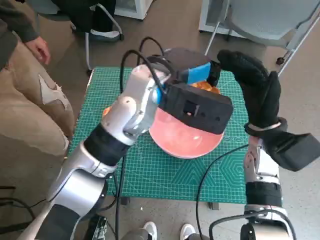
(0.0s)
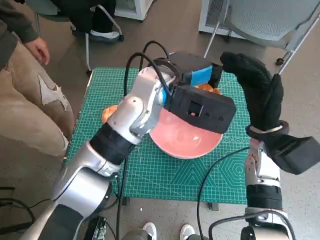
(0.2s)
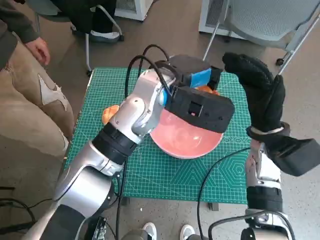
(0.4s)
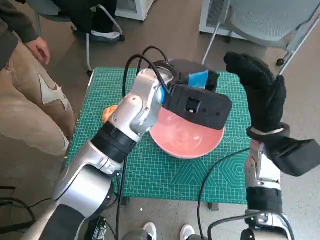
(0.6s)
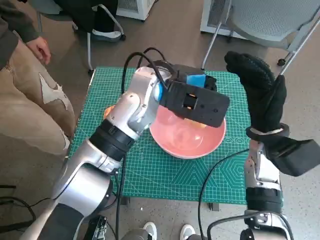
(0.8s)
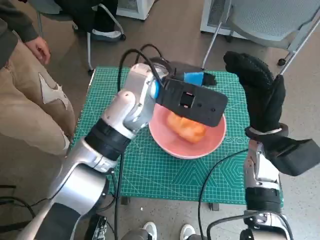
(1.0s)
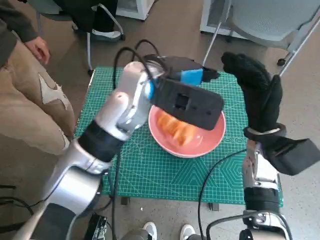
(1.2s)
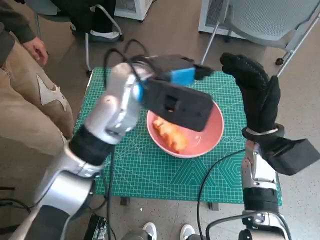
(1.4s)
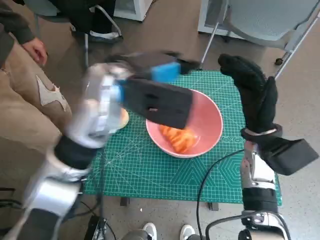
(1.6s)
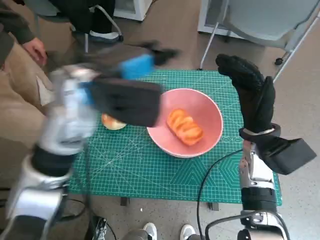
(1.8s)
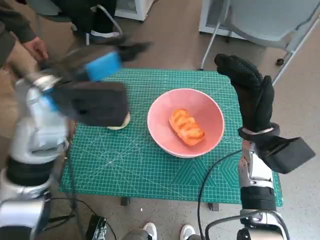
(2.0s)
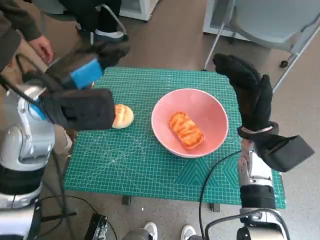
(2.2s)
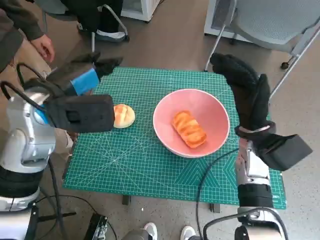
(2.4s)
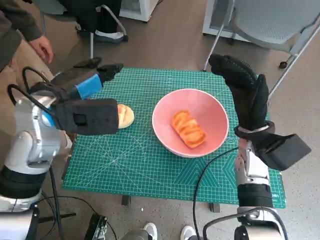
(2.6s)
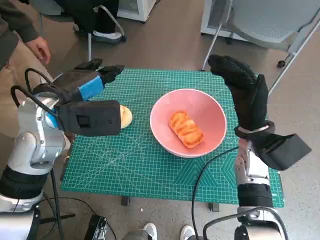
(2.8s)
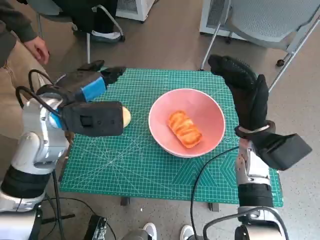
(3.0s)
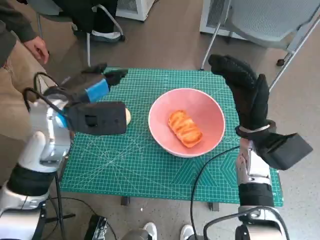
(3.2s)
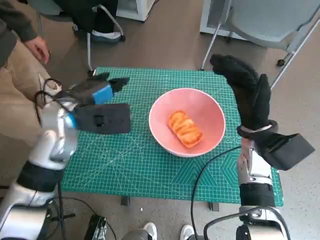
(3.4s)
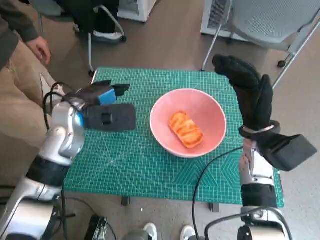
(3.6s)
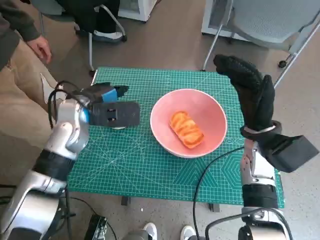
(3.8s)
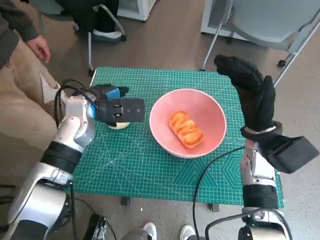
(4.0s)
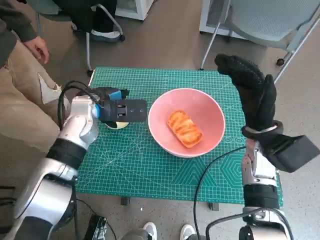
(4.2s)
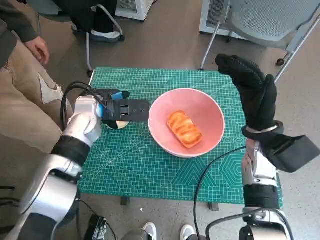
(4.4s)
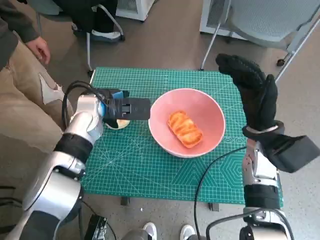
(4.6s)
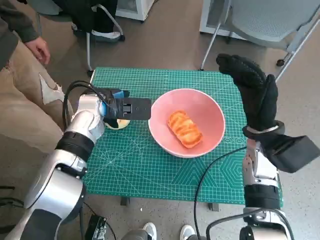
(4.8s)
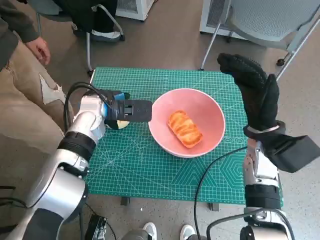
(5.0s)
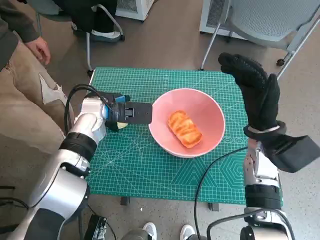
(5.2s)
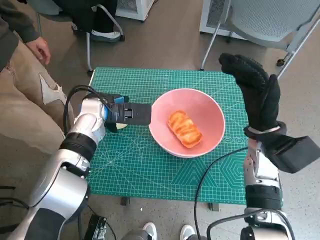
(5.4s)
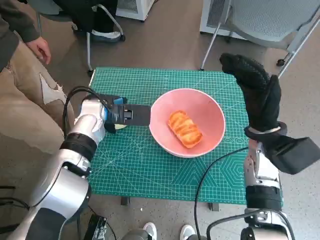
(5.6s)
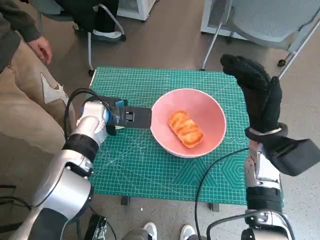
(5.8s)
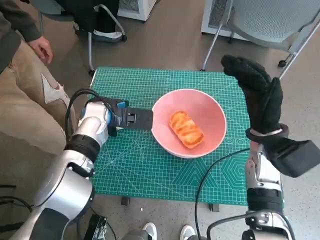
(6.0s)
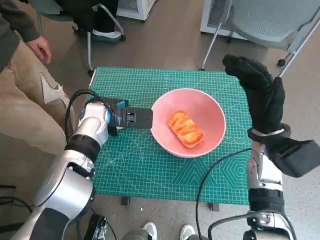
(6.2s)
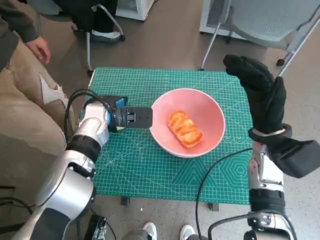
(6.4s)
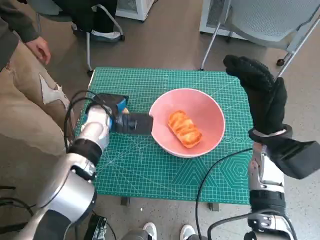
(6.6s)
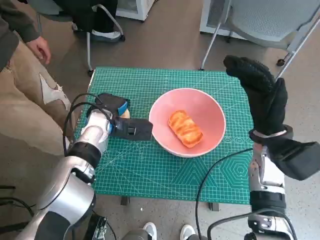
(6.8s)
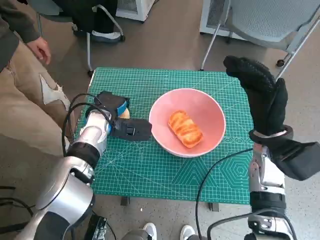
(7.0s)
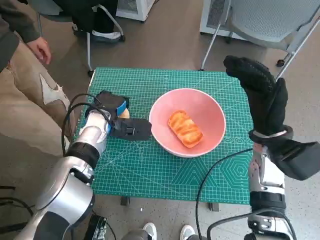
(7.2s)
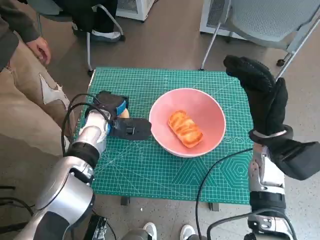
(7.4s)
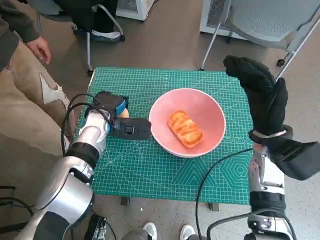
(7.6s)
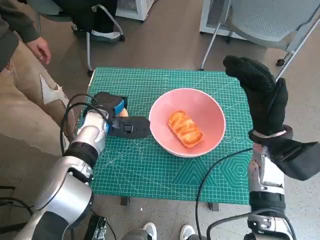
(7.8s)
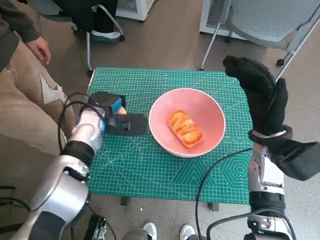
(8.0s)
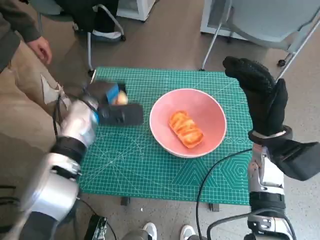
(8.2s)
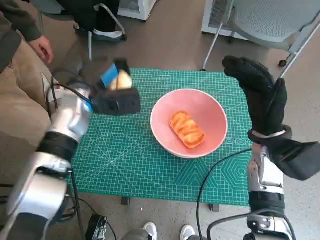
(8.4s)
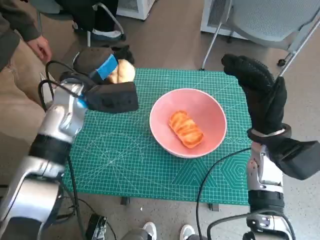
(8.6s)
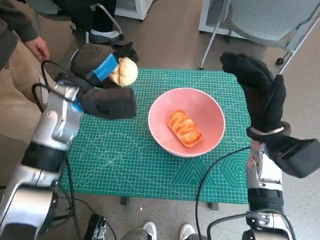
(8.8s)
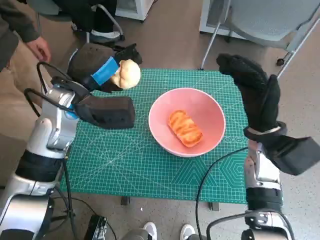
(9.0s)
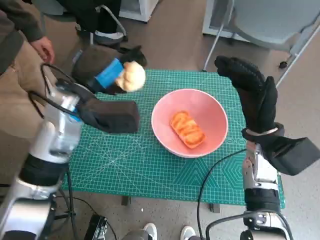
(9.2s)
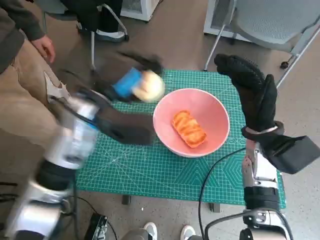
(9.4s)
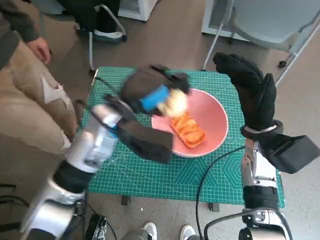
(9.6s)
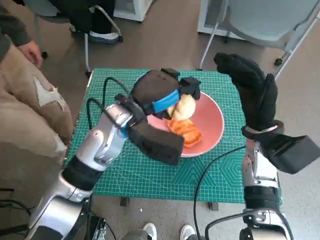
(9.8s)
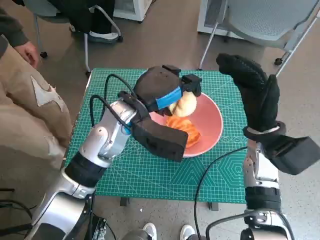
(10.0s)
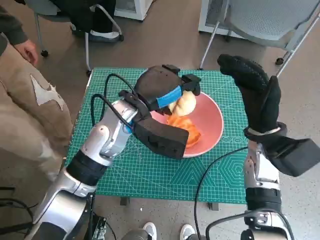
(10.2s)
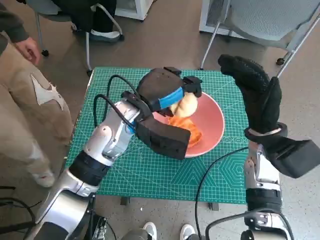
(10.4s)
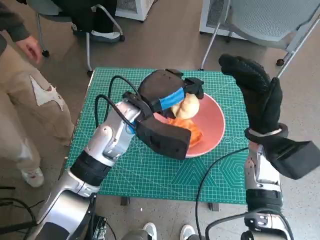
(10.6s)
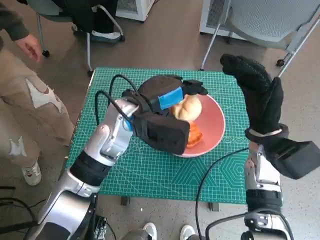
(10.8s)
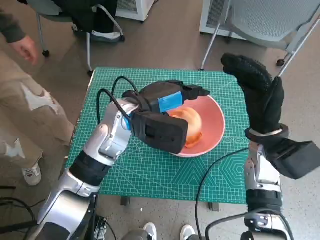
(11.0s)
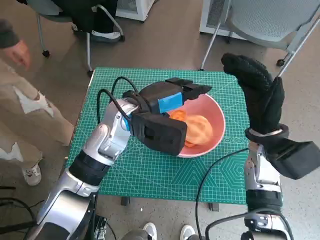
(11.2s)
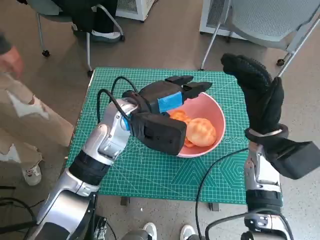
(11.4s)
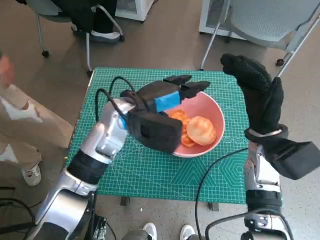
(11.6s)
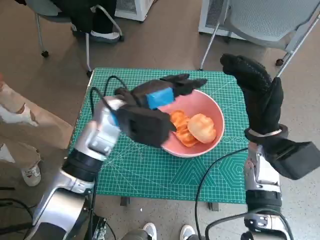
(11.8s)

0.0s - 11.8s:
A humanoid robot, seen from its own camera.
Step, 1.4s - 6.6s: Grasp the round bread with left hand.
Step, 6.8s - 11.4s: Place the round bread in pink bowl with left hand.
1.4s - 3.0s: The left hand is displaced to the left by about 15 cm.
3.0s - 4.4s: The left hand heads downward and forward, covering about 10 cm.
7.4s - 8.8s: The left hand goes about 10 cm upward.
8.8s - 10.4s: The left hand moves to the right, roughly 10 cm.

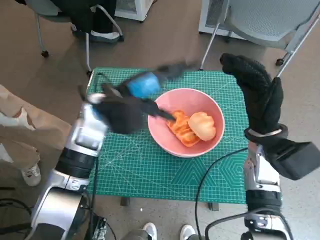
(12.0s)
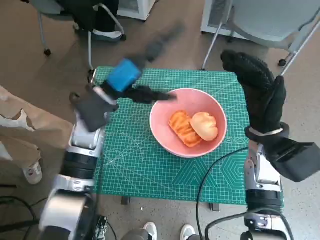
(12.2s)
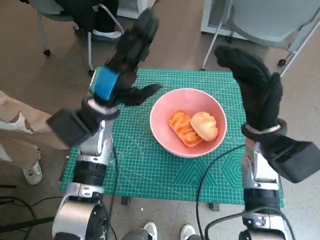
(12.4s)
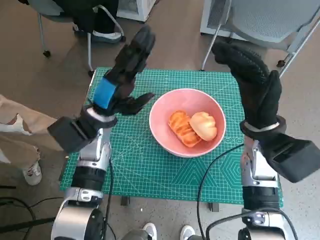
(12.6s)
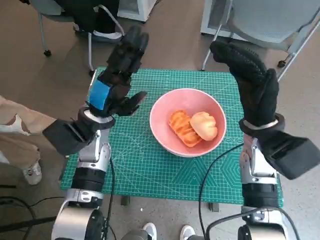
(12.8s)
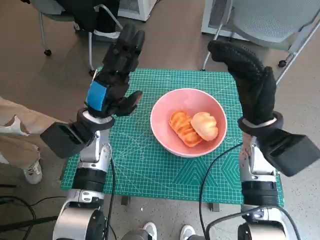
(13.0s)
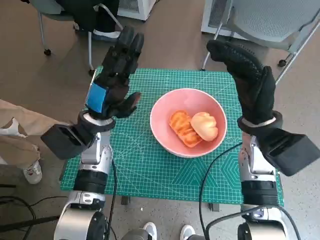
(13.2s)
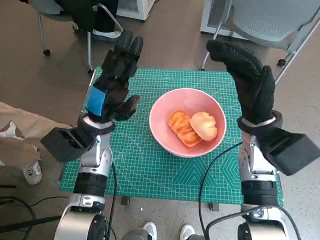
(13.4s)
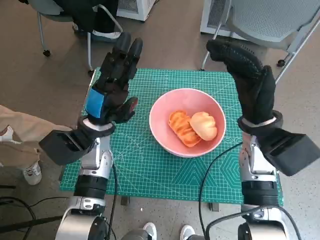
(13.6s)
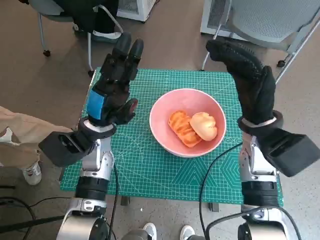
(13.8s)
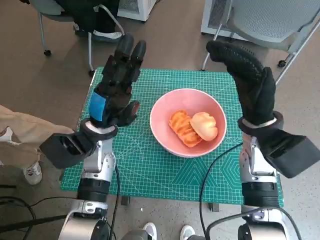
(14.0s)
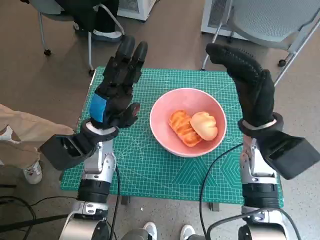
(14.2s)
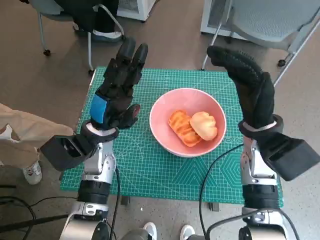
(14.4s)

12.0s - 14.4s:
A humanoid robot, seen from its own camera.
12.0s - 13.2s: The left hand shifts about 5 cm downward.
13.2s - 14.4s: There are only small adjustments of the hands.

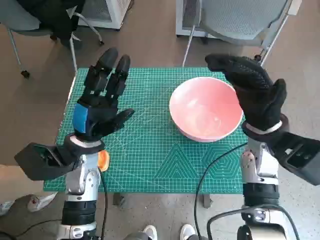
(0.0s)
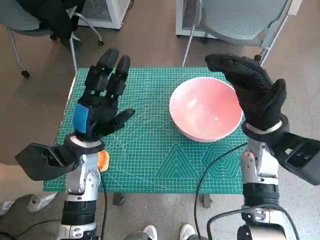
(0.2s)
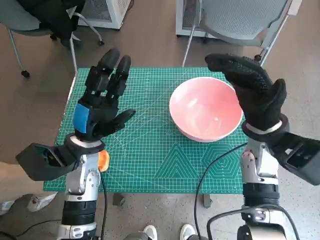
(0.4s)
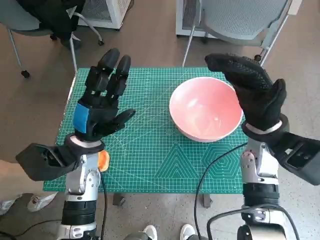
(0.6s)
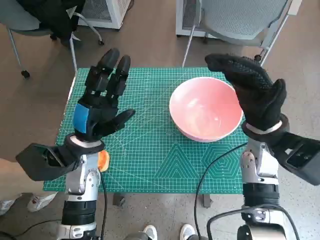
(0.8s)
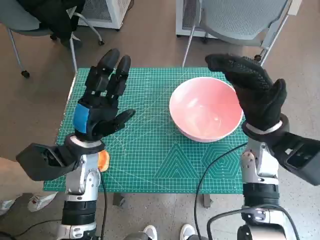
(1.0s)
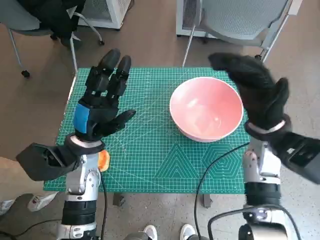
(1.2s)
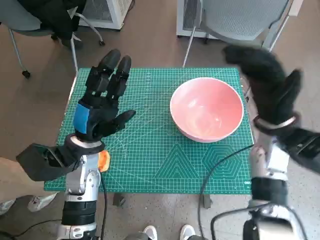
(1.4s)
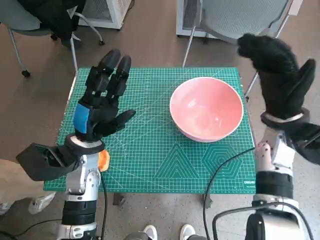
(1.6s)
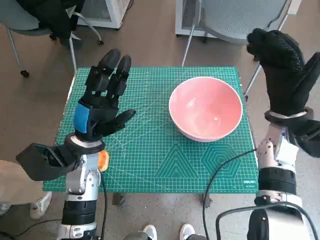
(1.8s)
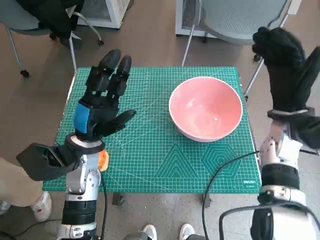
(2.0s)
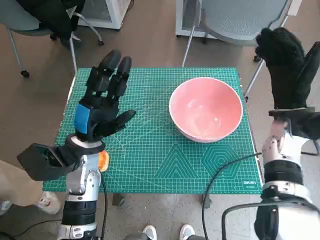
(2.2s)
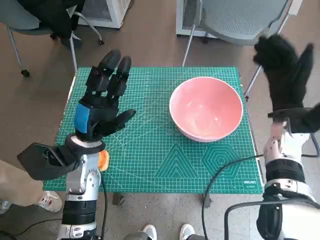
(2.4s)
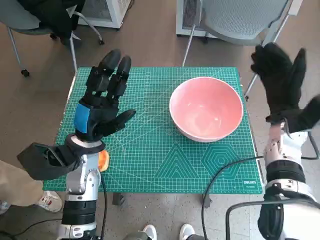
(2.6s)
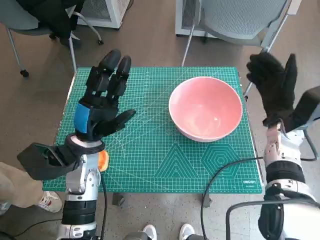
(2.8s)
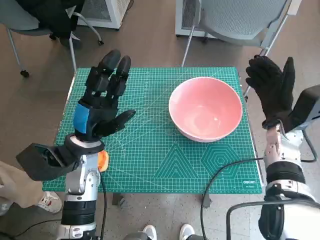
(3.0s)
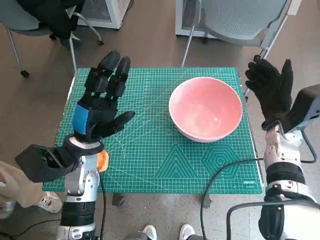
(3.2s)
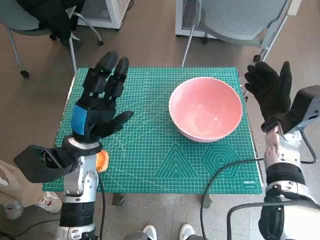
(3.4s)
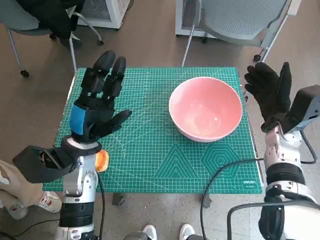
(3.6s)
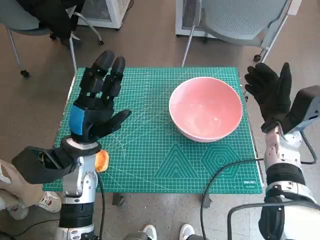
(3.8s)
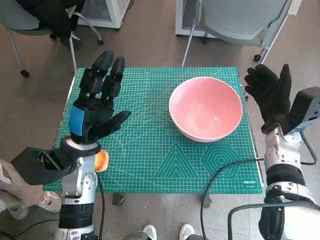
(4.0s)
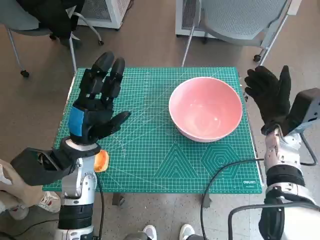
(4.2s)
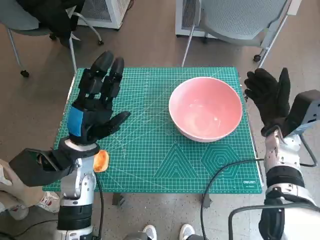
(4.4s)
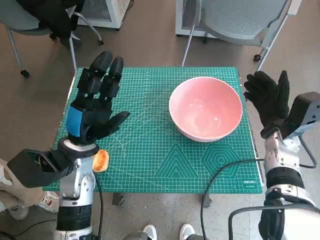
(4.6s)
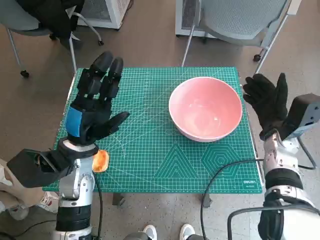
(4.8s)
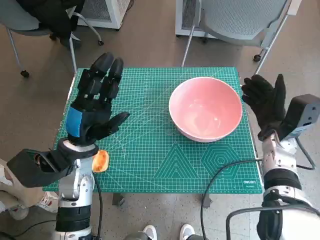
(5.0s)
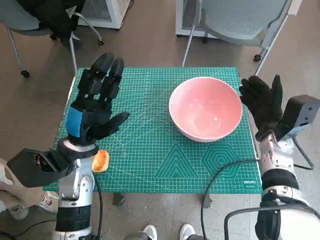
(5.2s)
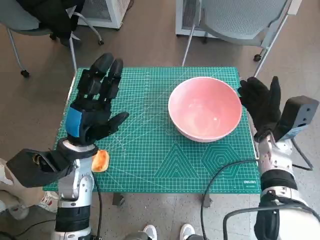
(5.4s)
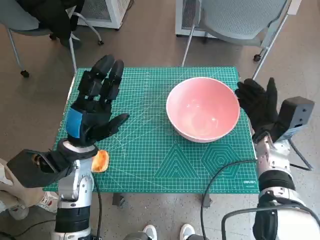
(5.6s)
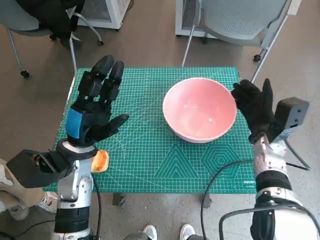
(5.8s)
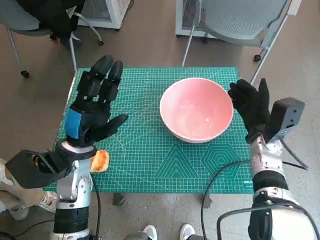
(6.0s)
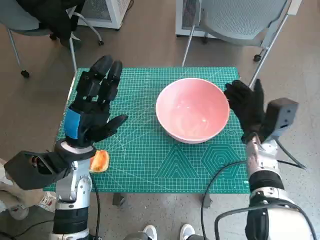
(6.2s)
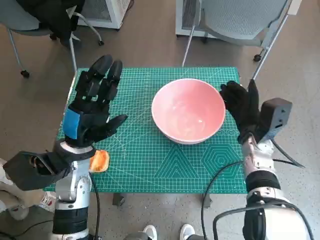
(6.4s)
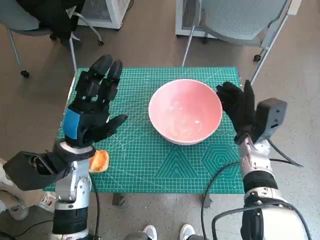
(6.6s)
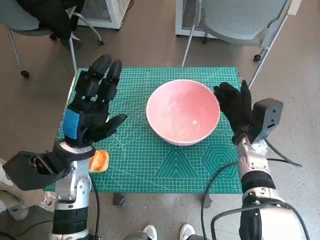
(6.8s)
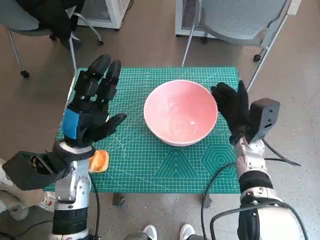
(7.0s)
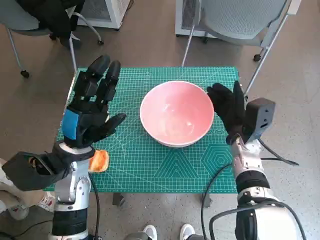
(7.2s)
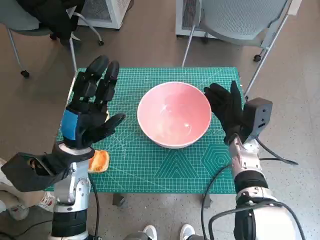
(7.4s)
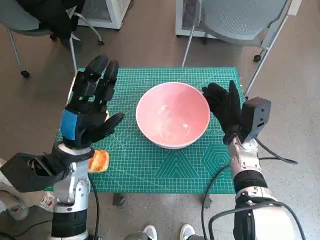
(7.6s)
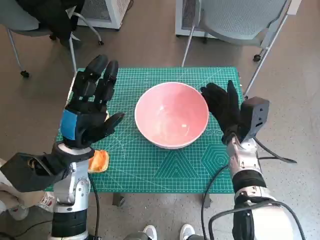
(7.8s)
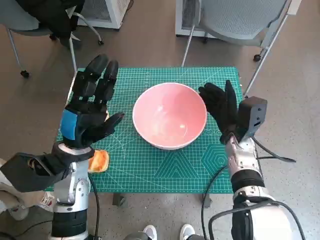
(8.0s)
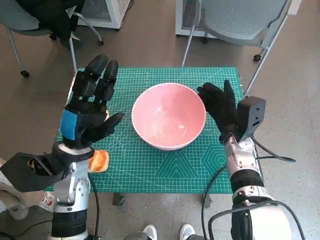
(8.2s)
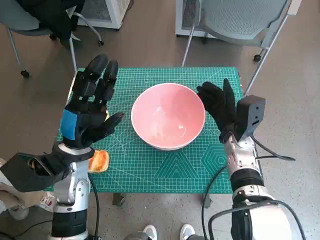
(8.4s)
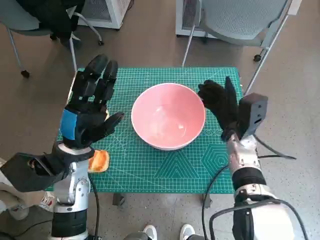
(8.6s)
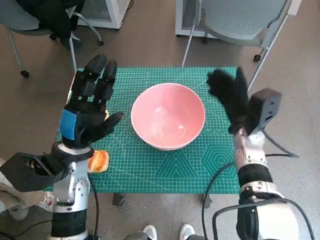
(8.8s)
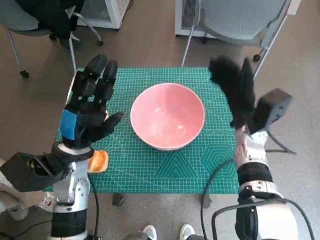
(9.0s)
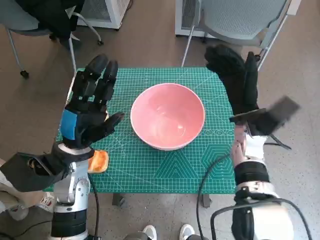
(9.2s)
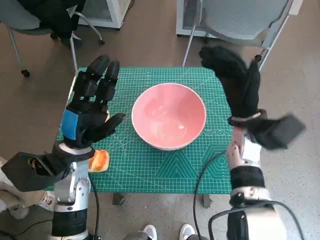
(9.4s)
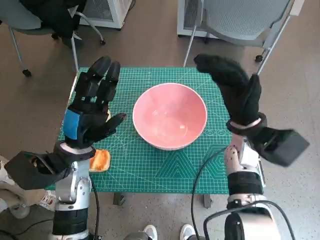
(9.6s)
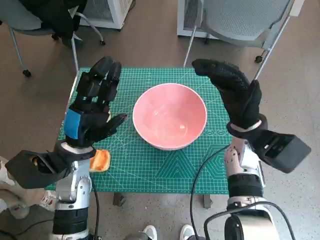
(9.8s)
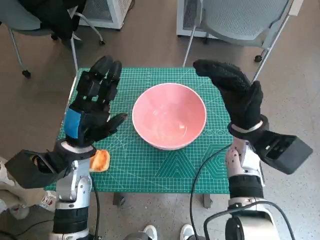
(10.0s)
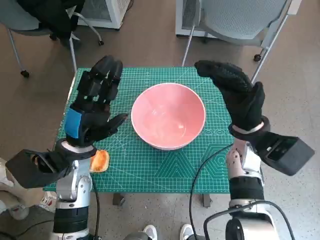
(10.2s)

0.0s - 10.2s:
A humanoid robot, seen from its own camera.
Step, 0.0s - 8.8s: Move the pink bowl to the center of table with right hand.
1.4s - 3.0s: The right hand moves some 5 cm.
3.0s - 5.8s: There are only small adjustments of the hands.
7.2s - 8.8s: The hands move only a little.
8.8s - 10.2s: The right hand moves some 5 cm.
